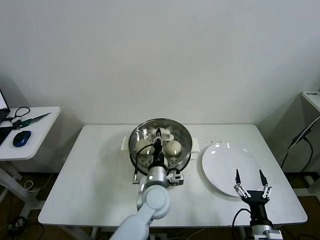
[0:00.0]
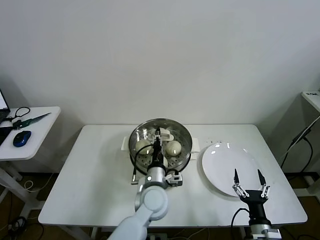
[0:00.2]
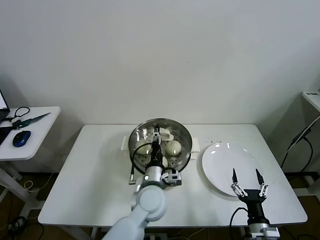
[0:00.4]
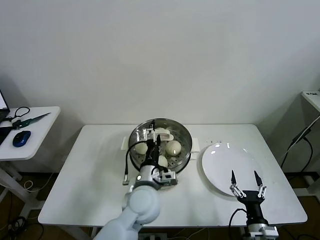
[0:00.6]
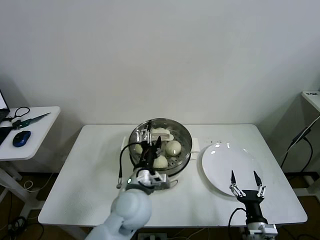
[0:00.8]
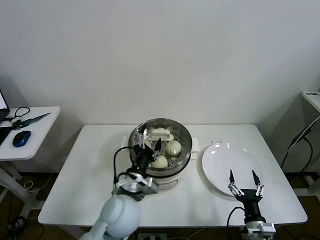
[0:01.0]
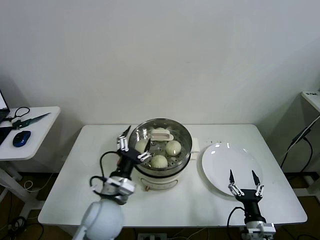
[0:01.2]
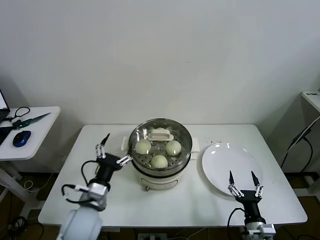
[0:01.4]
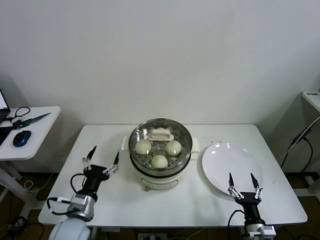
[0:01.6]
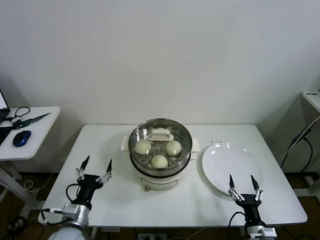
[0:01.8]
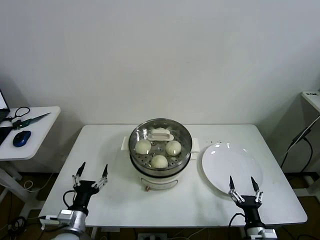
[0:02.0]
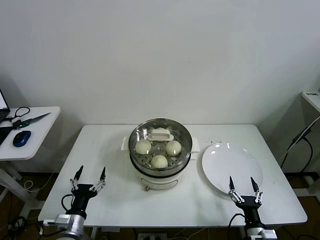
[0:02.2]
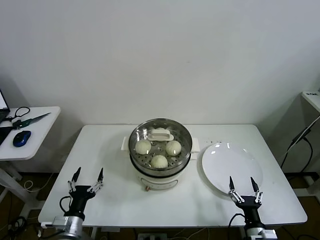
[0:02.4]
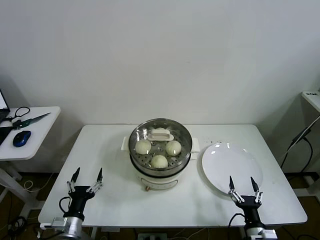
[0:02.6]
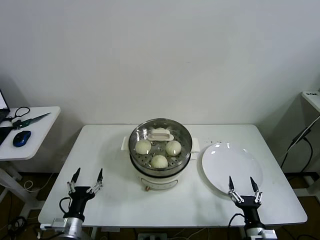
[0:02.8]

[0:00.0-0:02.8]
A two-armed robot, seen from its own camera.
Task of the whole recording: take steamed baozi put them in steamer then cover it.
0:00.0 to 0:01.4: The left gripper travels to the left and backward by about 20 cm, and opens its fingers.
0:01.4 to 0:02.8: The left gripper shifts roughly 15 cm downward, to the left and backward.

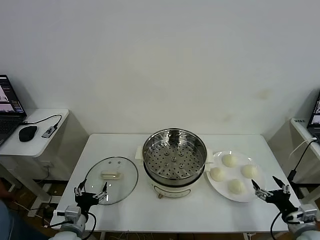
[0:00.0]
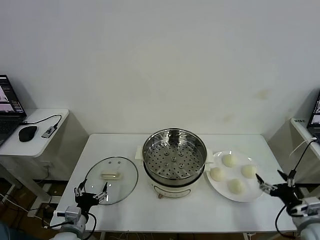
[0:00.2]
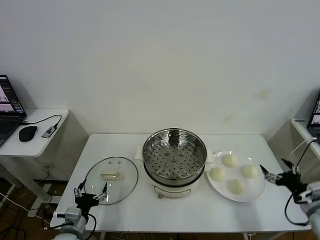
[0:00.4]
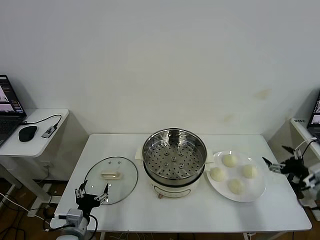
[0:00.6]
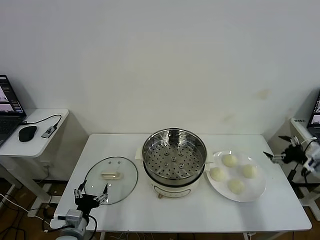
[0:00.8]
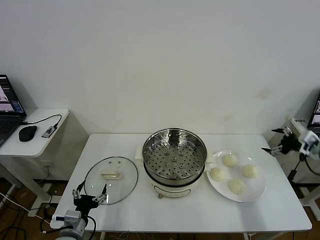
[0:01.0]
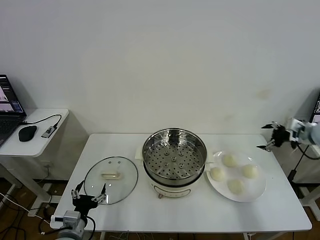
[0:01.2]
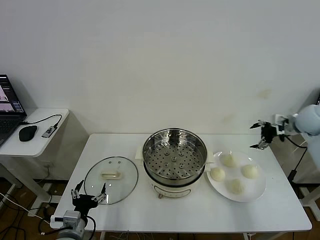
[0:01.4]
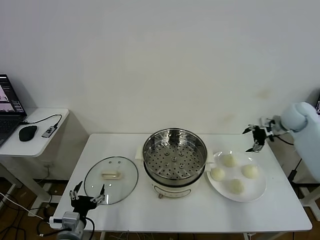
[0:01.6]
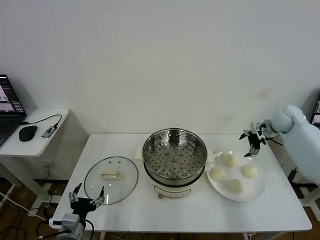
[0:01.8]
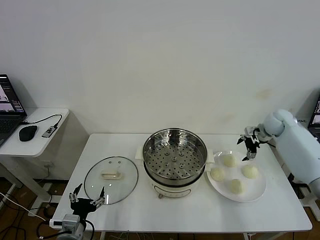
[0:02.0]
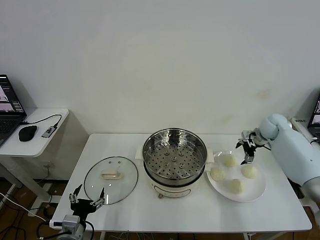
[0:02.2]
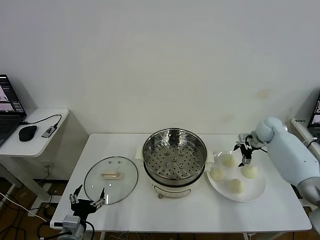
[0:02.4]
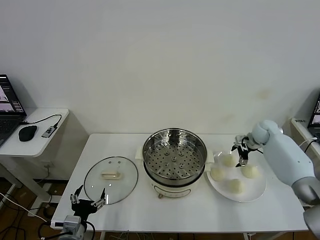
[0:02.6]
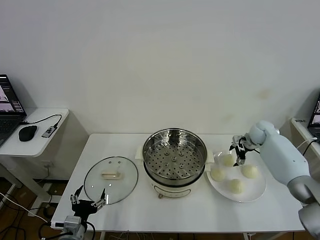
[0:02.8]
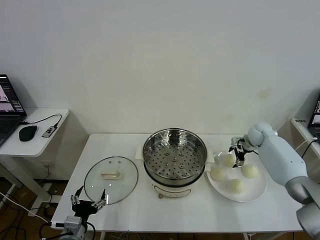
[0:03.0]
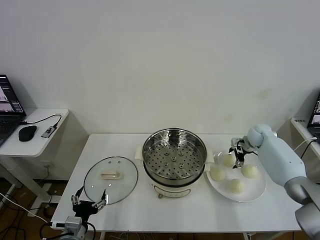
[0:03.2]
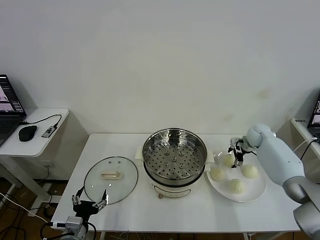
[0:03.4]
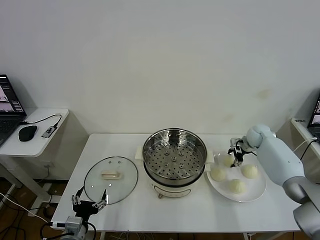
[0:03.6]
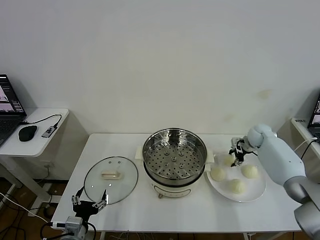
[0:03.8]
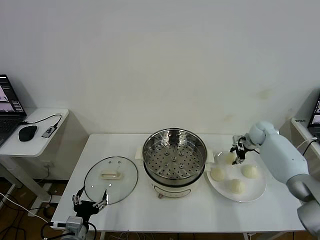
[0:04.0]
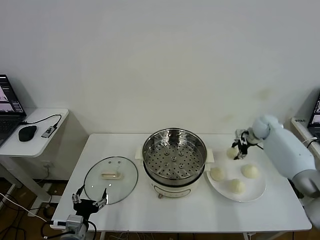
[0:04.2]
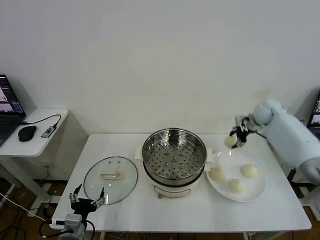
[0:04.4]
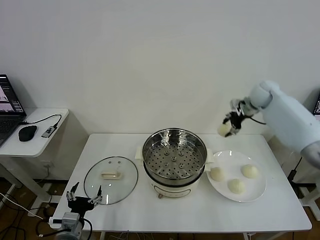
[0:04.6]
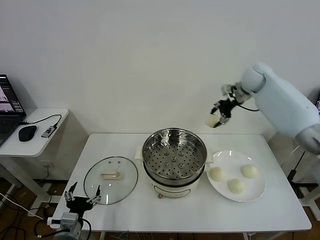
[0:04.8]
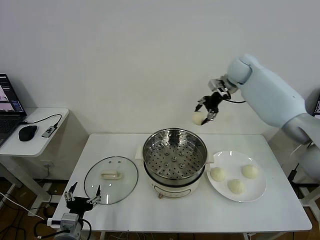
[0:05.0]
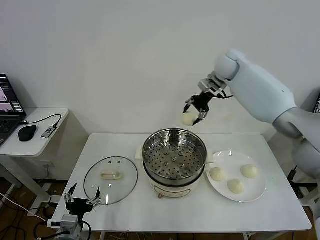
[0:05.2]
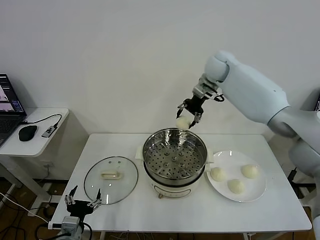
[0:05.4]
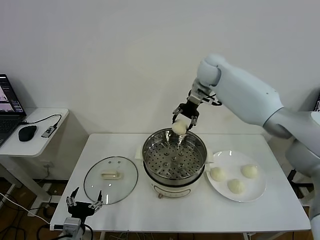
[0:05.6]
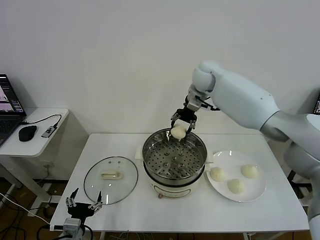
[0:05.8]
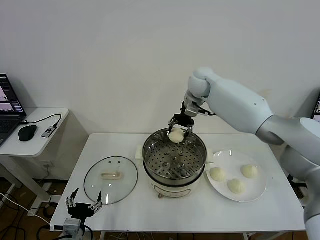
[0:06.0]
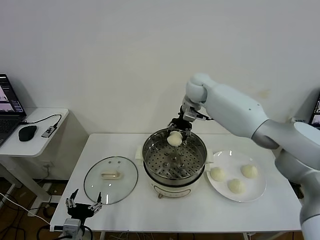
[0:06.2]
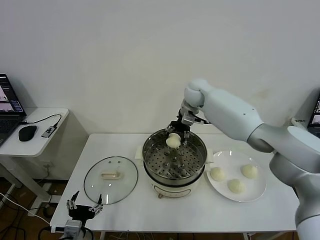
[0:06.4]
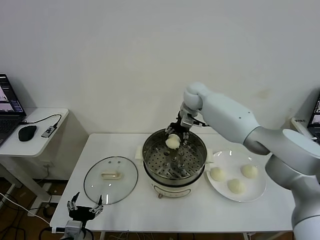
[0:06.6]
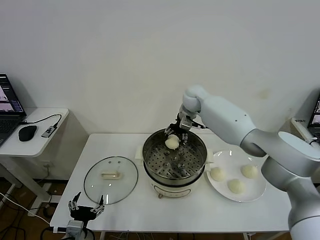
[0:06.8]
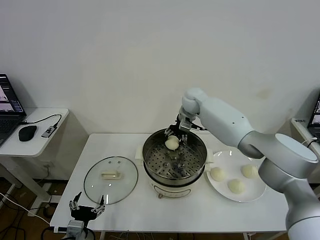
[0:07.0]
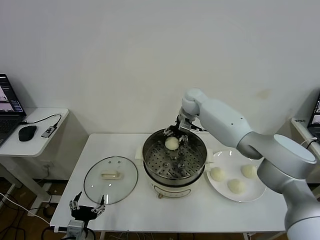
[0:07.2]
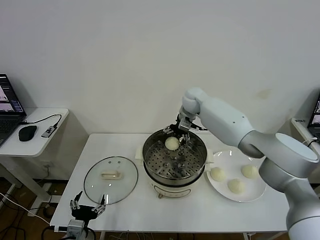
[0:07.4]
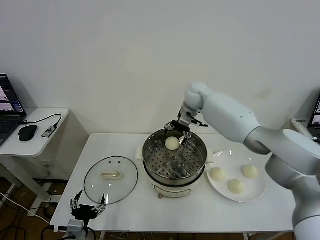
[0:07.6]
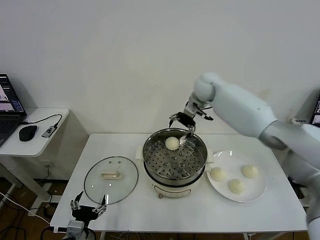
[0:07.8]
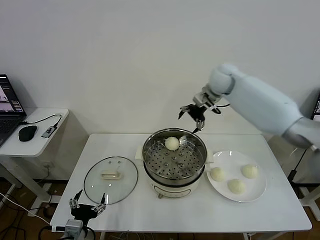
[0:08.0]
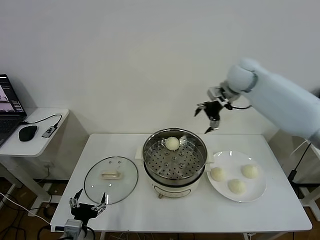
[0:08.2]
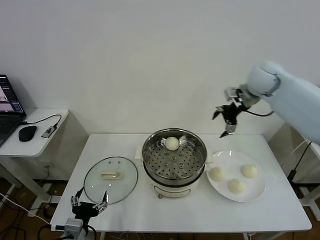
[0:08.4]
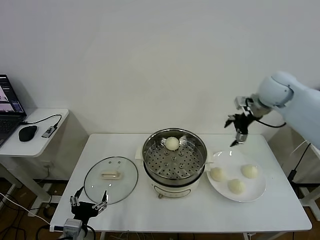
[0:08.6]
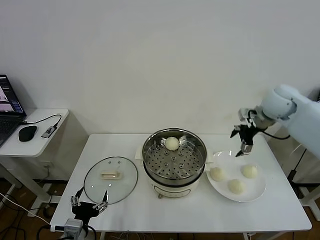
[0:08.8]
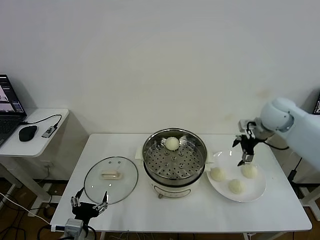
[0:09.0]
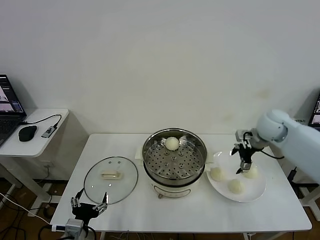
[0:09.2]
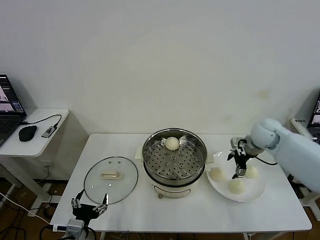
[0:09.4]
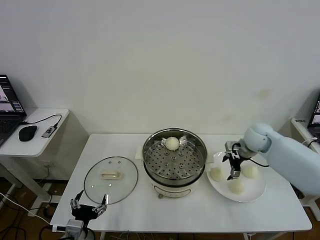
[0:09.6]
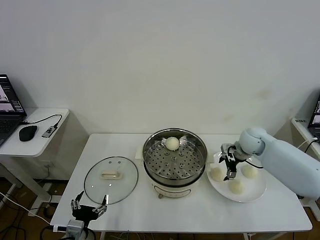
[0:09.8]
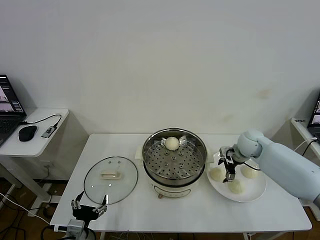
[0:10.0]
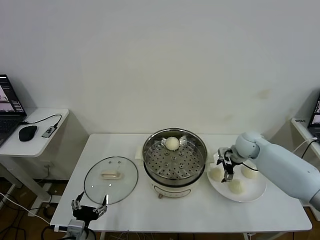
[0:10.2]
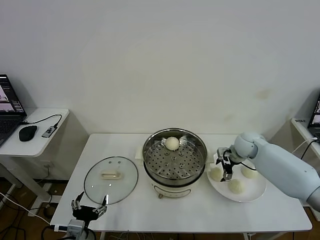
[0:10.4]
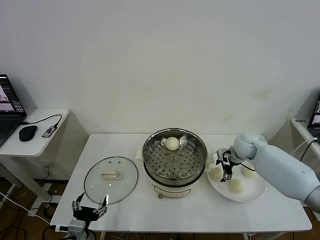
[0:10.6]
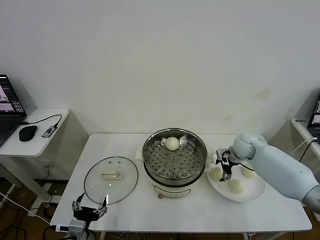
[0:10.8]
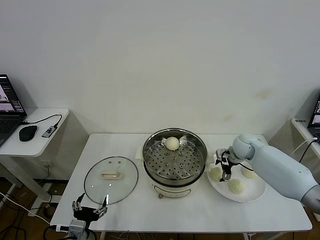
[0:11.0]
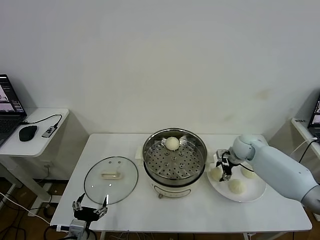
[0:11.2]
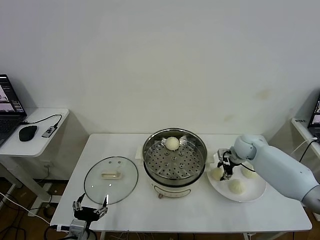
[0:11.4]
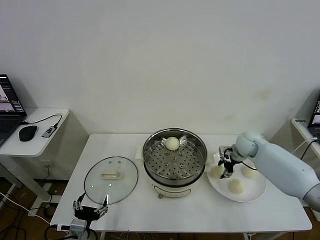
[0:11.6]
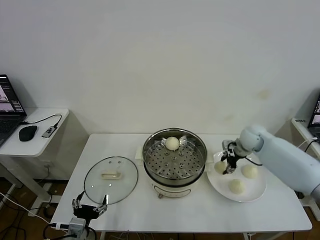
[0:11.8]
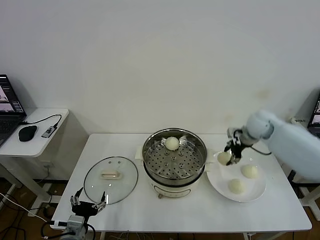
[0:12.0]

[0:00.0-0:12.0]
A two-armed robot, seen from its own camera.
Task of the whole recording: take steamed baozi put them in steamer then cover it.
Step, 0:00.0 to 0:03.8: Grasp the baozi in the plate with right gripper.
Step, 0:04.0 to 0:07.6: Place the baozi on the steamer with right gripper.
Step, 0:07.8 to 0:11.6: Grasp the baozi in the plate with right gripper.
0:01.6 to 0:03.0: The right gripper travels downward by roughly 10 cm.
0:03.0 to 0:04.4: The right gripper goes approximately 15 cm upward, and closes.
0:04.4 to 0:06.0: The right gripper shifts approximately 25 cm to the left.
0:06.0 to 0:07.6: The right gripper opens.
0:07.6 to 0:09.0: The right gripper is displaced to the right and backward by about 25 cm.
0:09.0 to 0:10.4: The right gripper is displaced downward by some 15 cm.
0:10.4 to 0:12.0: The right gripper moves upward, some 15 cm, and closes up.

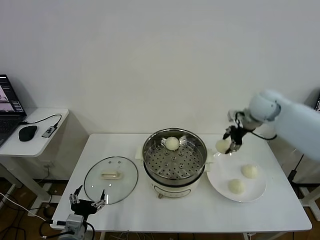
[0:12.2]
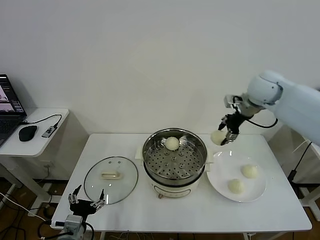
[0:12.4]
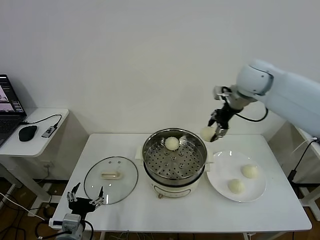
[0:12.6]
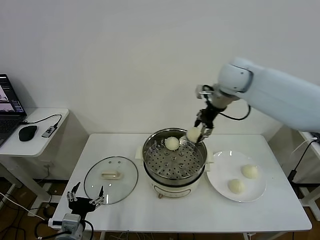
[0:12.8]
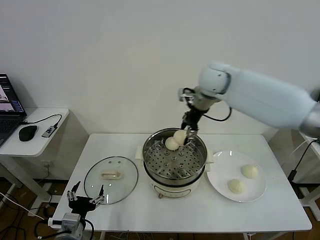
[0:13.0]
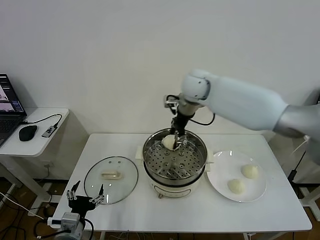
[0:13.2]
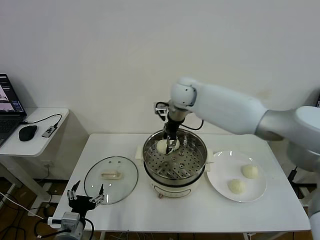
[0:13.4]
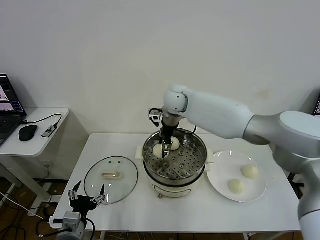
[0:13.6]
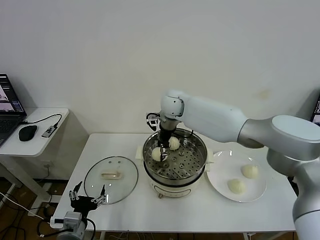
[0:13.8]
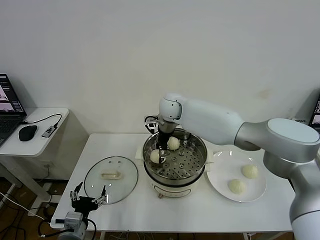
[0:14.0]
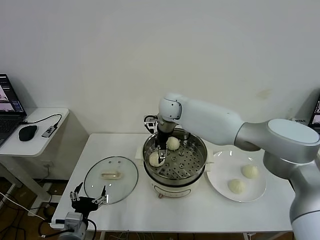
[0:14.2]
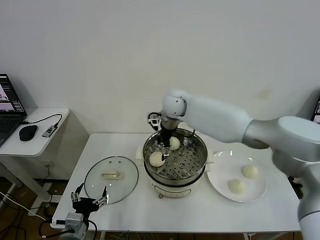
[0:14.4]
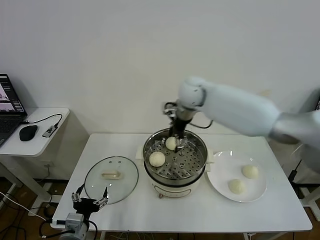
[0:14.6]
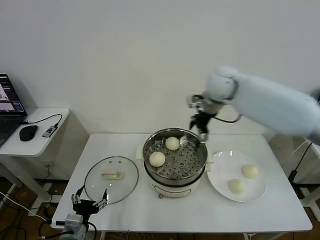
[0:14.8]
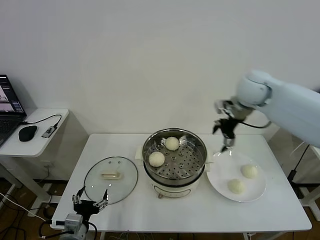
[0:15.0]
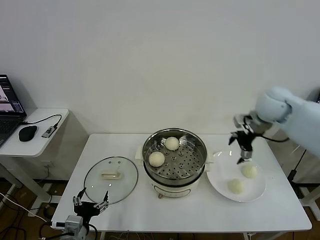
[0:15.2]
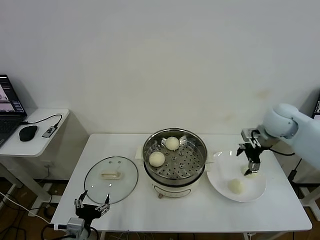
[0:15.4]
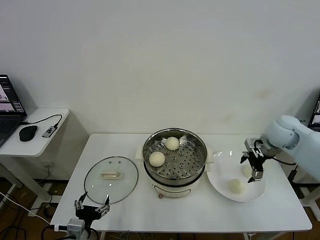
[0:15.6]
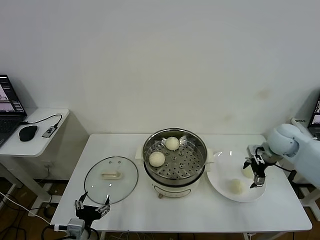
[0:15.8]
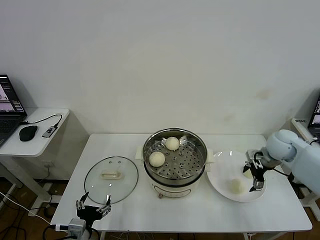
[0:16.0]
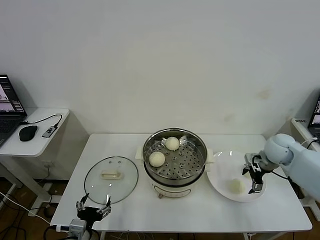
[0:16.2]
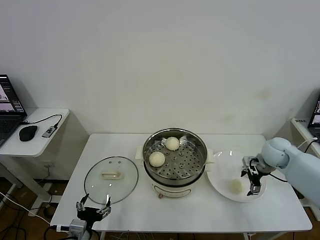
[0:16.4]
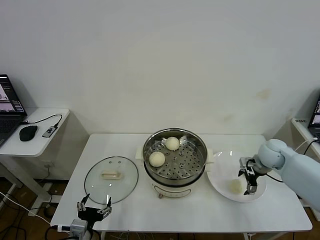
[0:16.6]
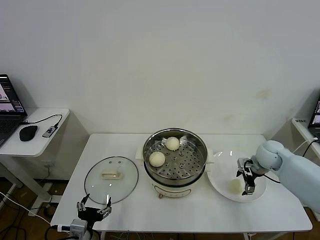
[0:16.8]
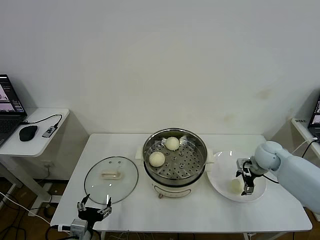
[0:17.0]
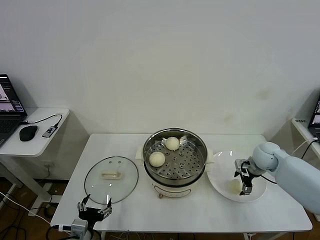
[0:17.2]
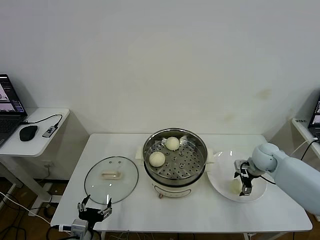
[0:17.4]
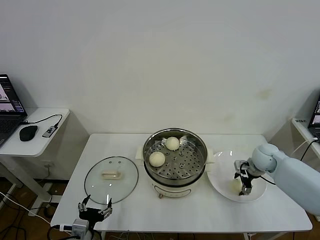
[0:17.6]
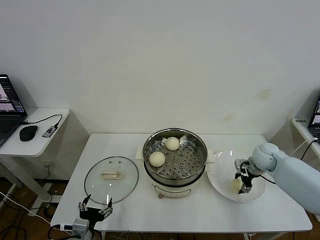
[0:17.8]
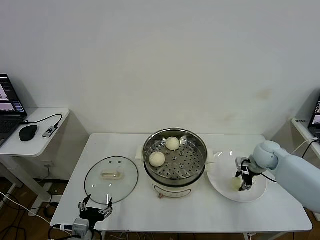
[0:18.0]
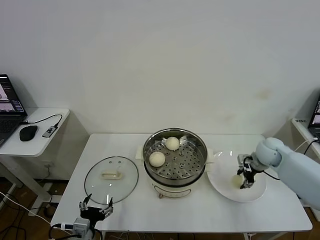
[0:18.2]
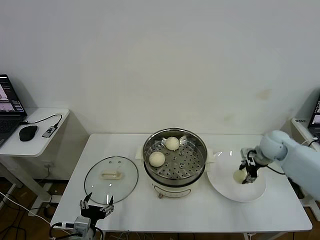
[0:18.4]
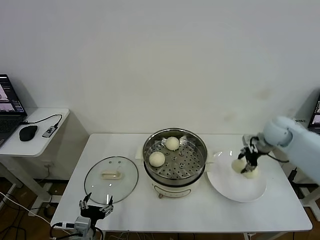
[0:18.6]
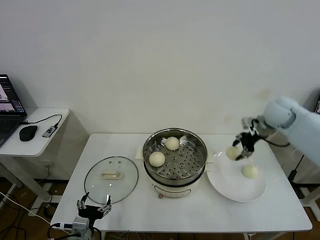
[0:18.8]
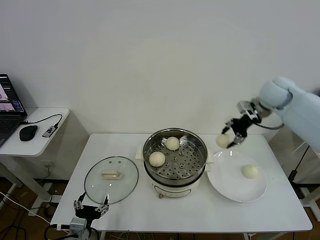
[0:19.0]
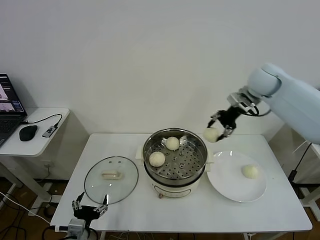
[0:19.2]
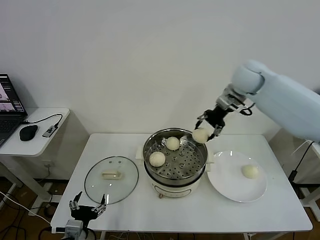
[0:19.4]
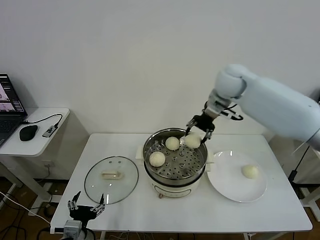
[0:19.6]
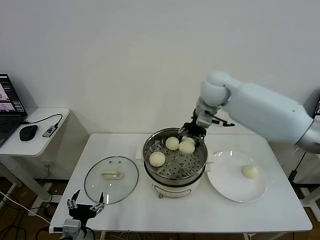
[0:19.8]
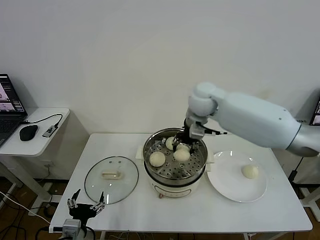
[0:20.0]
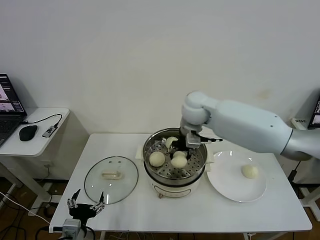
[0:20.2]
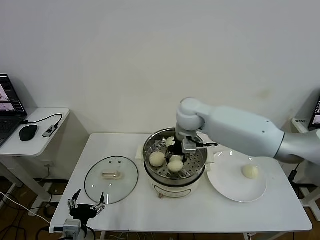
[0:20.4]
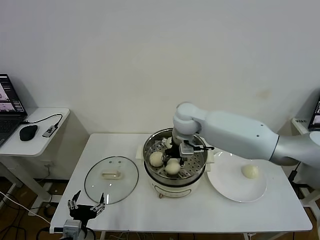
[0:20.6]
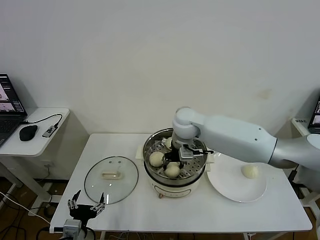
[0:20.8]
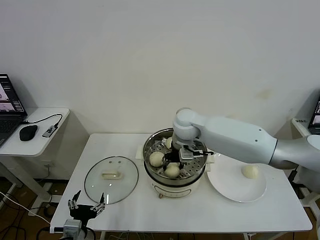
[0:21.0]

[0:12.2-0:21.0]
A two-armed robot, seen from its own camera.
Task of the whole recording: take steamed baozi put them in steamer then cover it.
Step, 0:12.2 to 0:14.2: Place the baozi on the steamer with right gripper.
Step, 0:14.4 to 0:18.0: Grasp the baozi in the plate with right gripper.
0:12.2 to 0:13.6: The right gripper moves to the left, some 25 cm.
0:13.6 to 0:15.2: The right gripper moves to the right, approximately 30 cm, and opens its fingers.
0:15.2 to 0:16.6: The right gripper goes some 15 cm downward.
0:16.6 to 0:18.0: The right gripper closes.
0:18.0 to 0:19.6: The right gripper goes some 30 cm upward and to the left.
0:19.6 to 0:21.0: The right gripper goes about 15 cm downward, to the left and backward.
